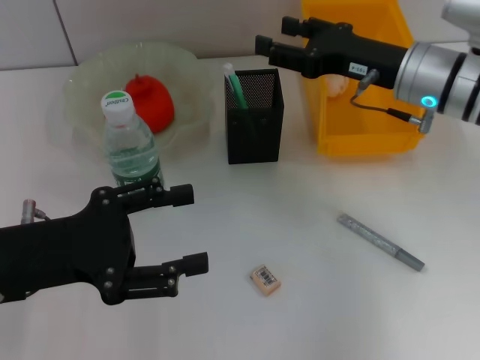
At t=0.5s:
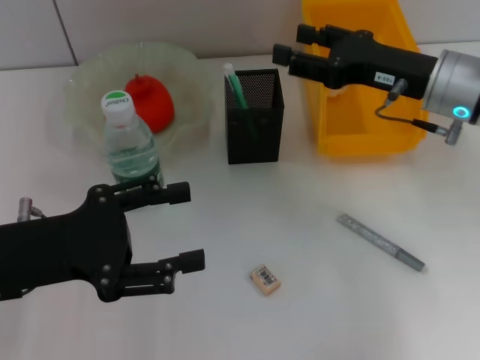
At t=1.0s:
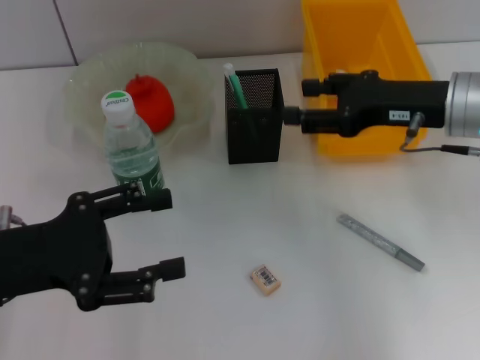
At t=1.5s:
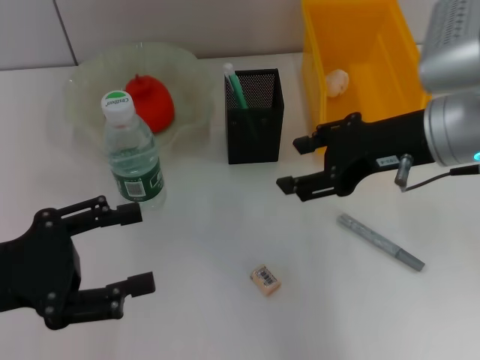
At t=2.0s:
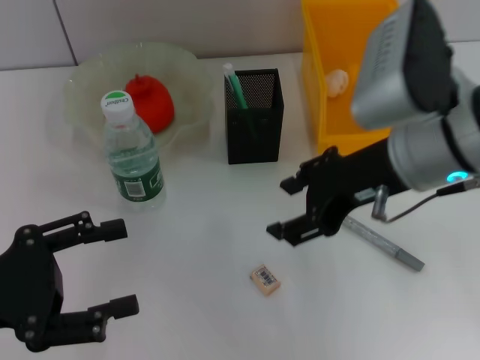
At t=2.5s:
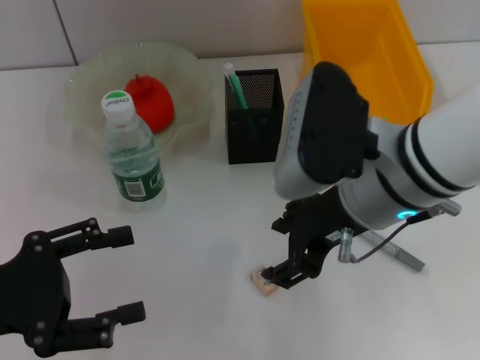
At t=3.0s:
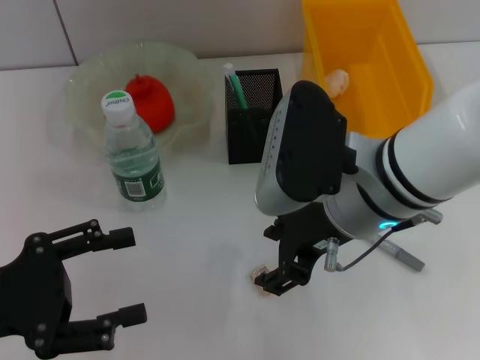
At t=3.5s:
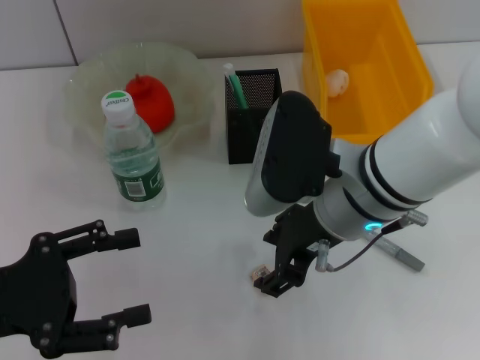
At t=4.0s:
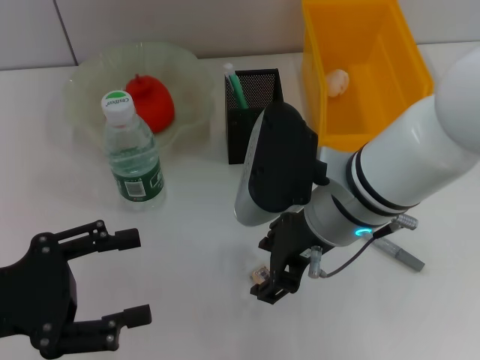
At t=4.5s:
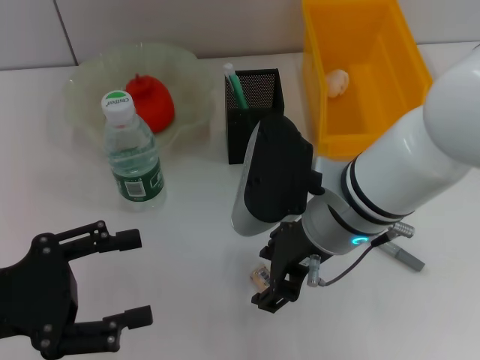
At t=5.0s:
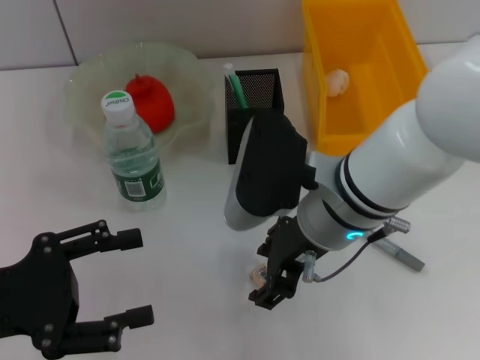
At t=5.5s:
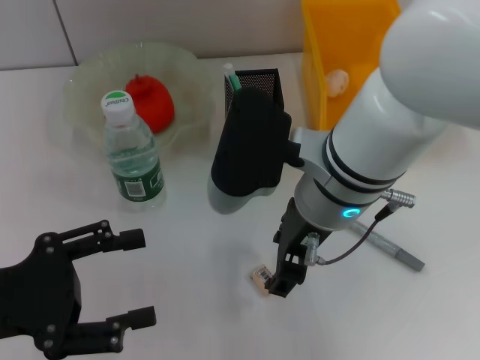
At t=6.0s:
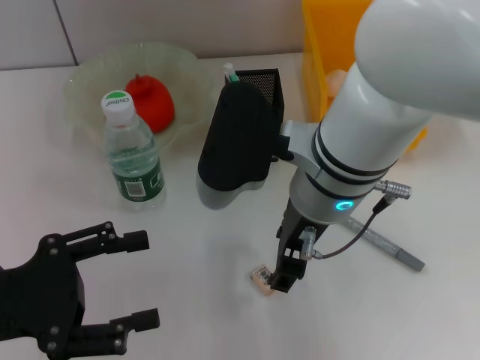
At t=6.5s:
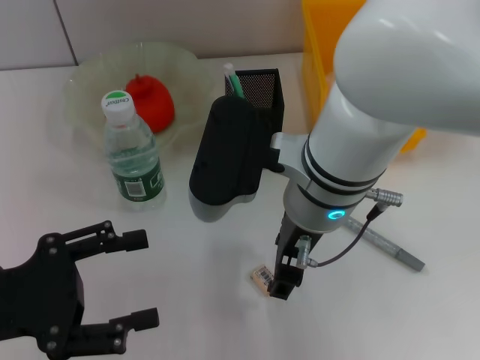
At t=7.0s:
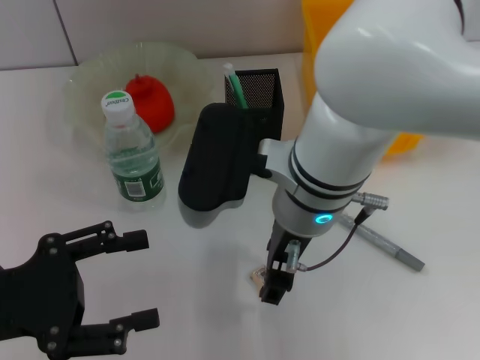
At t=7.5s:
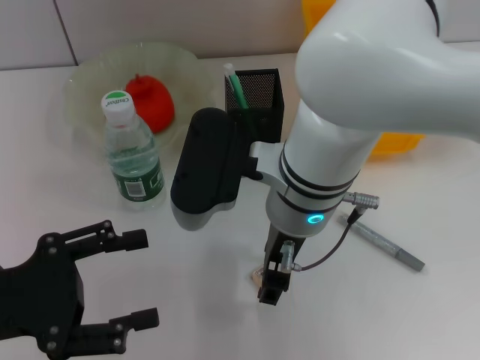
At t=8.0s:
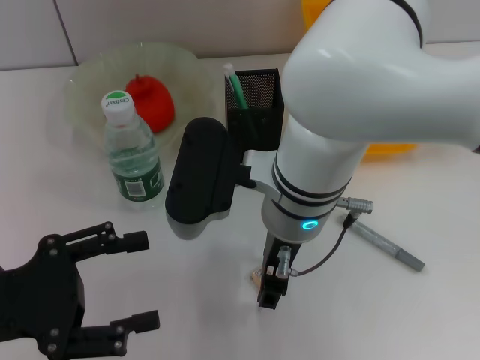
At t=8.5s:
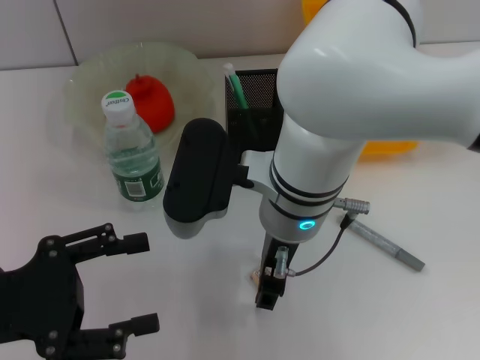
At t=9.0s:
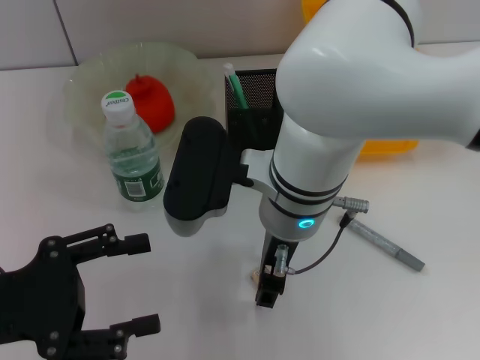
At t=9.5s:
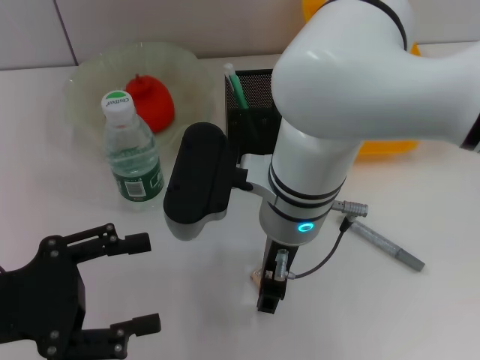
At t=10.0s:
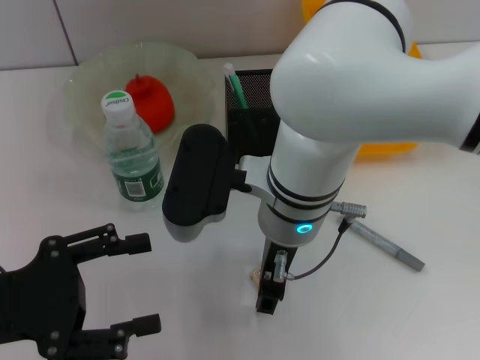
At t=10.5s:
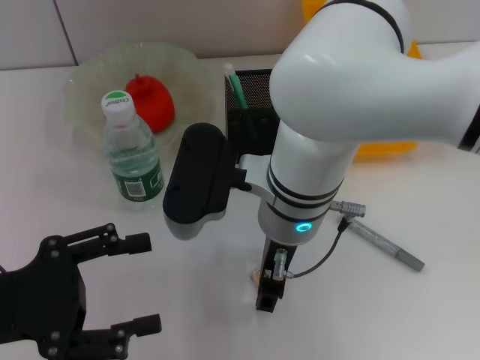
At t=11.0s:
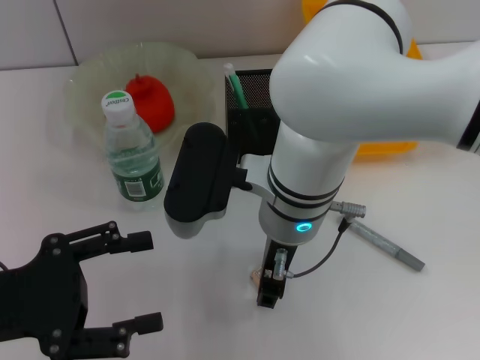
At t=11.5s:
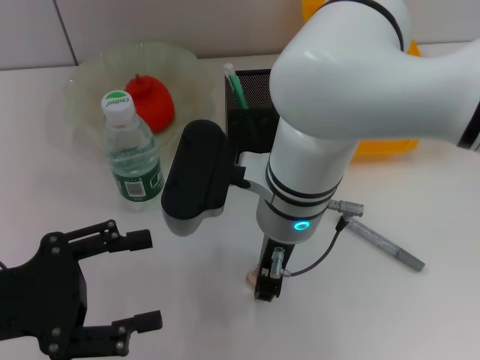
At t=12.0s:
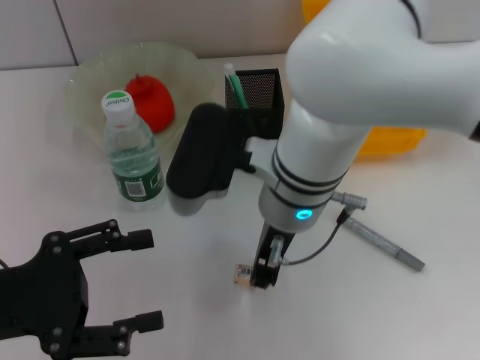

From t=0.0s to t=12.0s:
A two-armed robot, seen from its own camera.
From t=0.0s to t=2.0s: The left gripper is displaced to the left by some 5 cm. Meanwhile the right gripper shifts some 10 cm backward, upward and to the left.
From t=2.0s to t=4.0s: The right gripper is displaced to the left and downward by some 10 cm.
From t=8.0s to t=10.0s: Neither gripper changes place.
From t=10.0s to t=12.0s: The right gripper closes its fingers.

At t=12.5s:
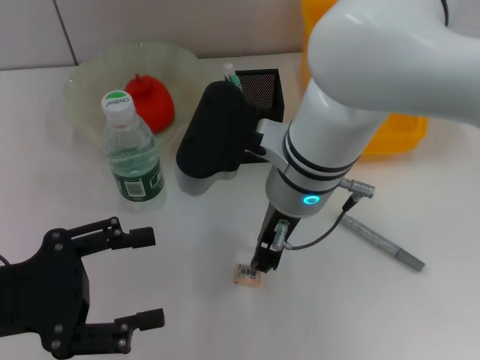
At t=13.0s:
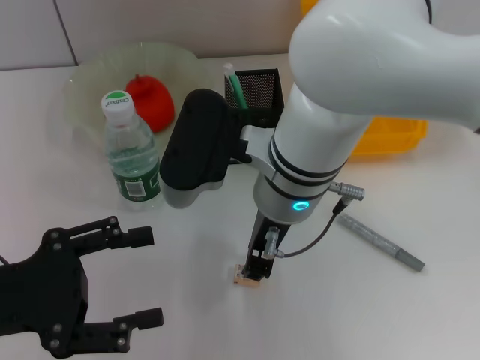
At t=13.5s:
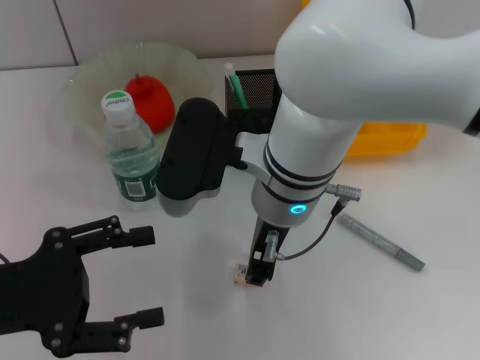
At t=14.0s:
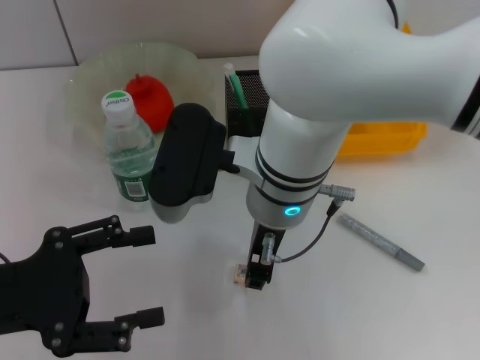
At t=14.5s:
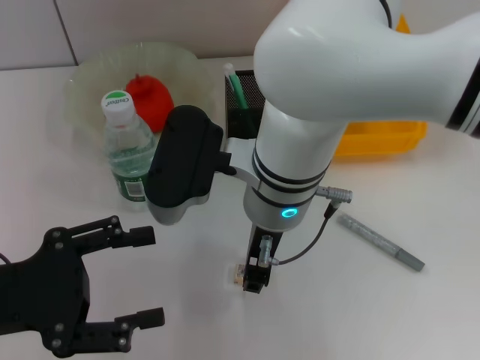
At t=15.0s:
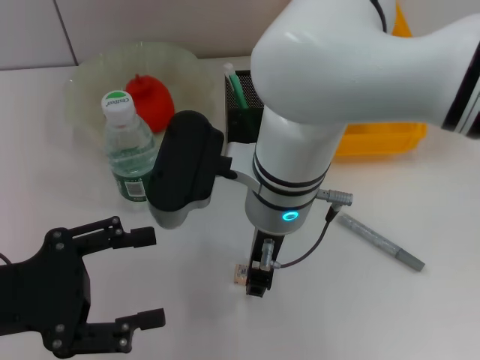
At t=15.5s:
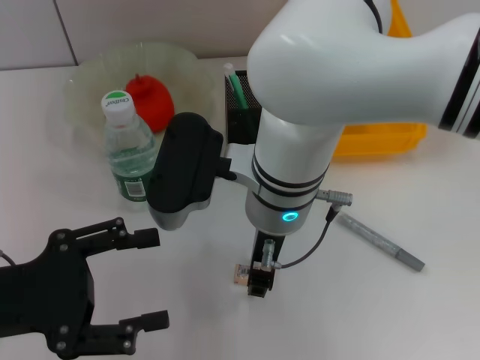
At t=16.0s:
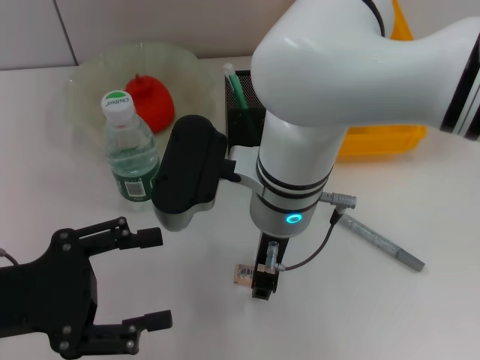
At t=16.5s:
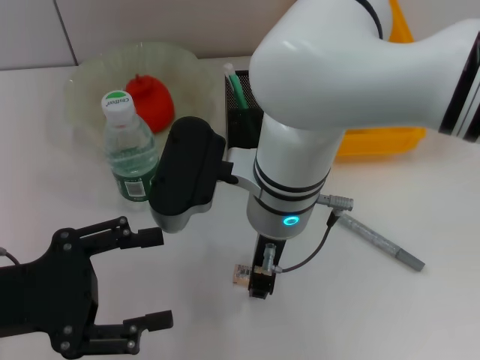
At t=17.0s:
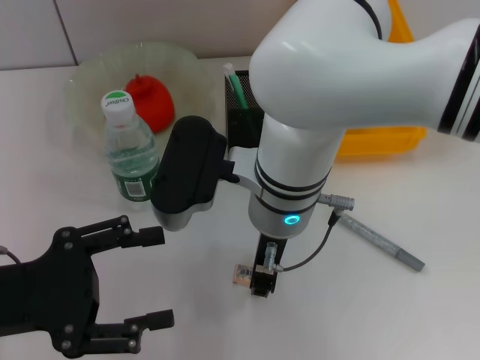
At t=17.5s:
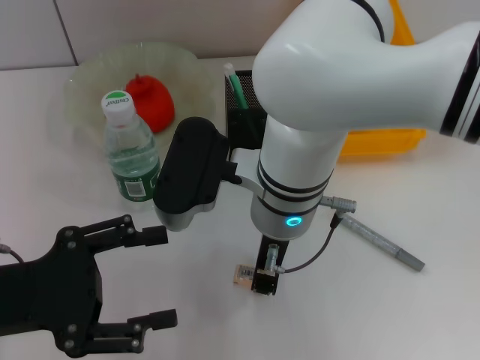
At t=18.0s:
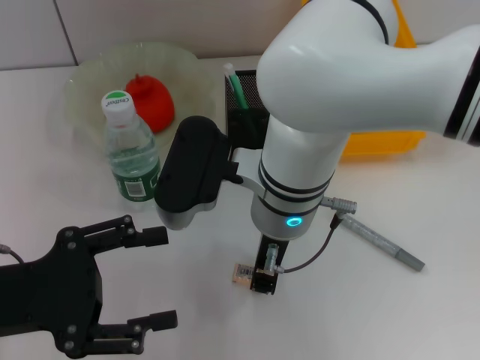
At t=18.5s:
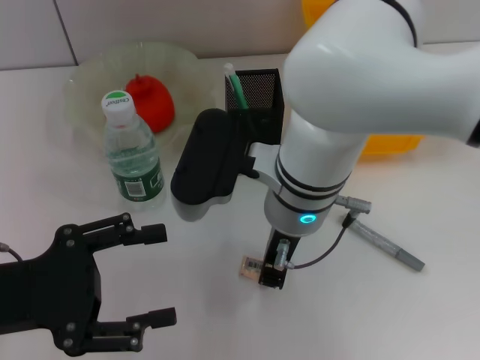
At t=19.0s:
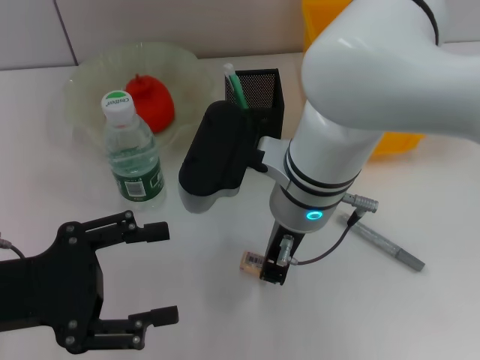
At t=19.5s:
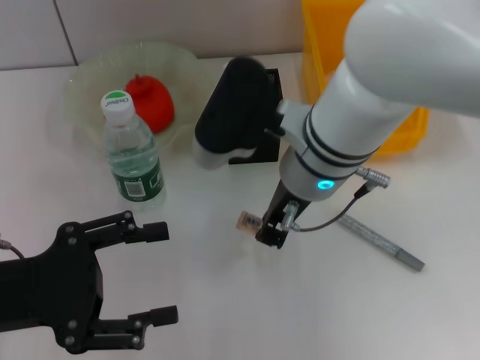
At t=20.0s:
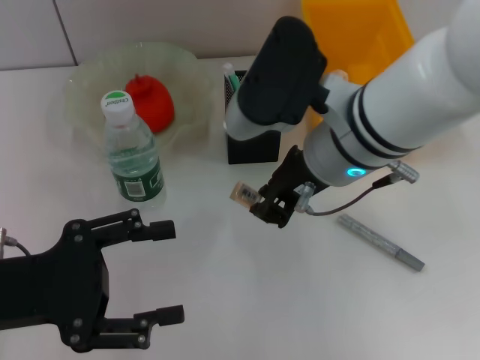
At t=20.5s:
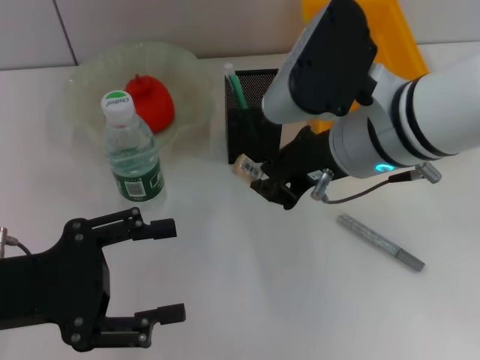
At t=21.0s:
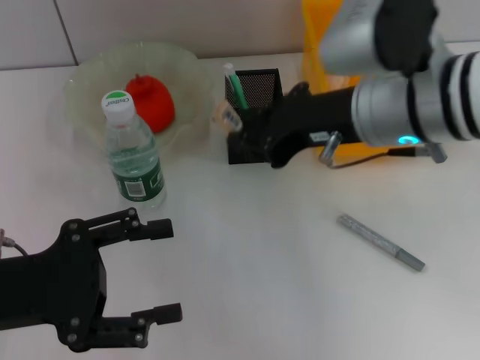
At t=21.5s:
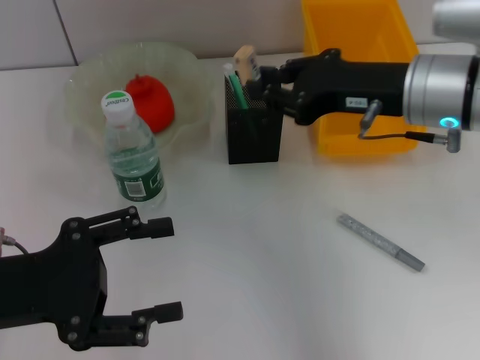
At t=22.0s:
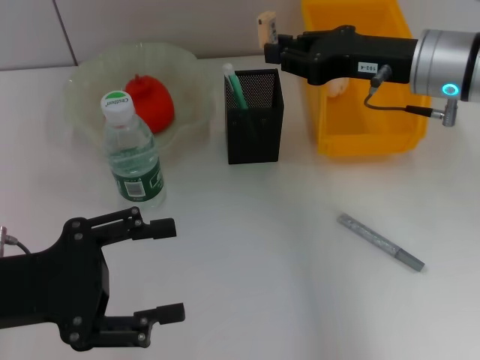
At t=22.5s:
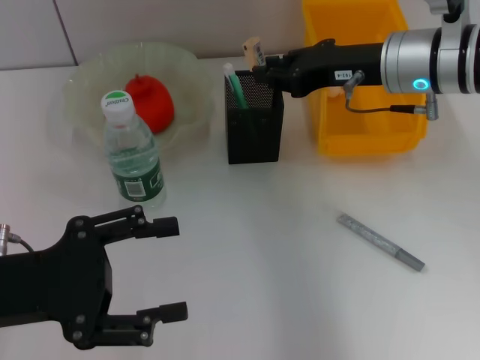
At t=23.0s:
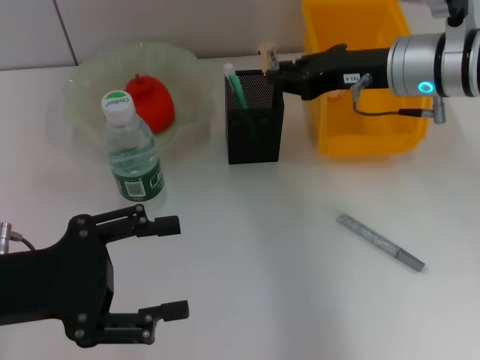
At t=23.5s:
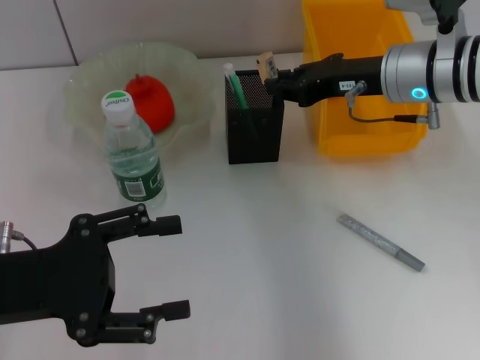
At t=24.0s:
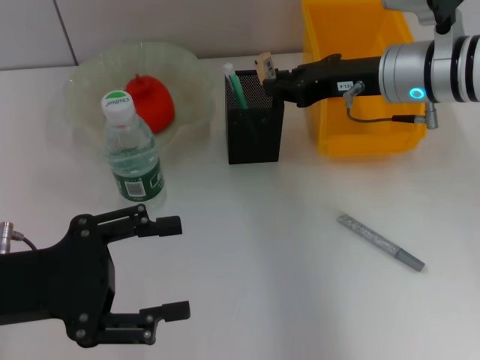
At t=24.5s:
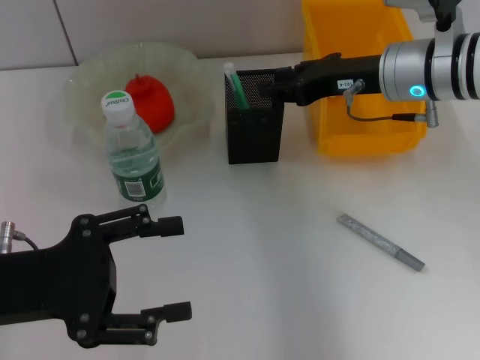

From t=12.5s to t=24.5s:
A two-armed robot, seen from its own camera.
Step, from t=12.5s to t=17.5s: Grab the eraser with the right hand.
From t=12.5s to t=14.5s: There are only small adjustments of the grippers.
From t=14.5s to t=16.5s: Both grippers stay about where they are.
From t=16.5s to t=18.5s: There are only small adjustments of the grippers.
From t=18.5s to t=20.5s: The right gripper moves to the right and upward, roughly 10 cm.
From t=20.5s to t=22.5s: The right gripper moves forward and to the right, roughly 10 cm.
From t=22.5s to t=24.5s: The grippers move only a little.

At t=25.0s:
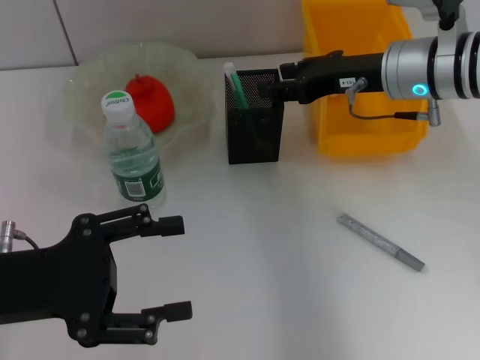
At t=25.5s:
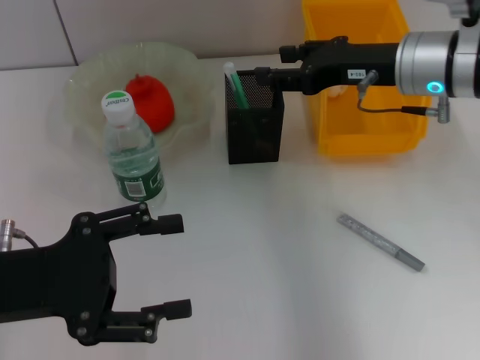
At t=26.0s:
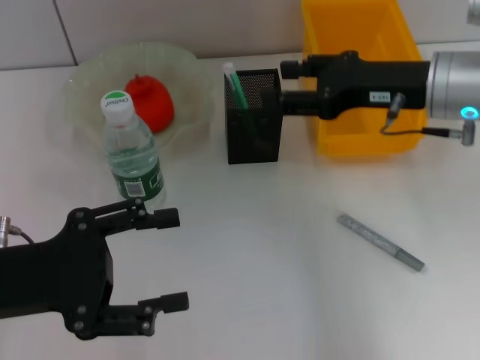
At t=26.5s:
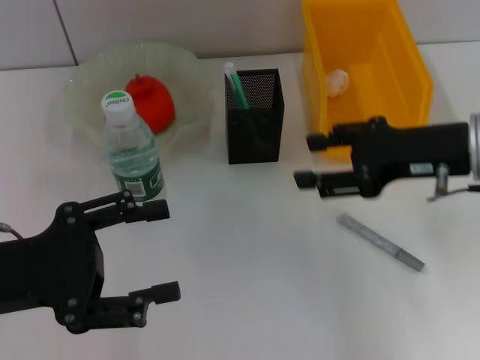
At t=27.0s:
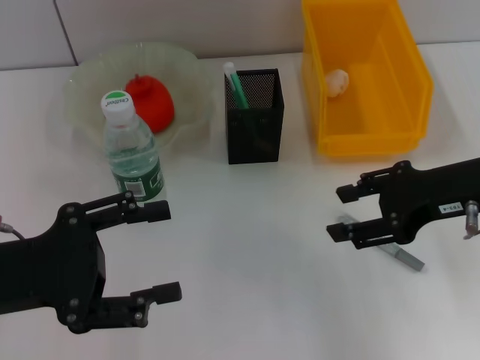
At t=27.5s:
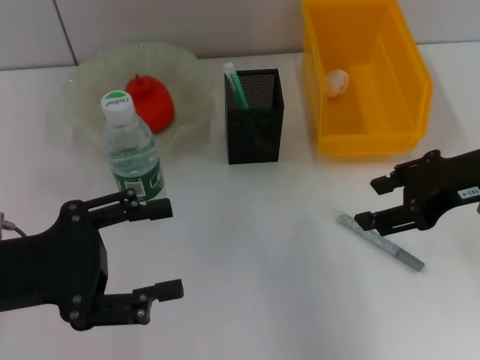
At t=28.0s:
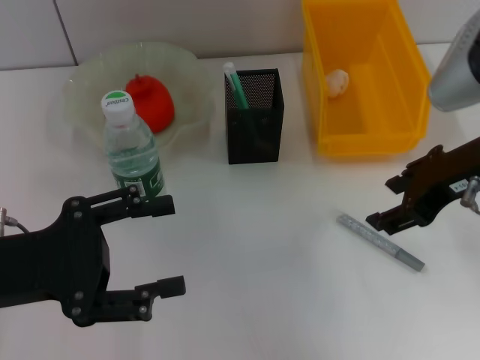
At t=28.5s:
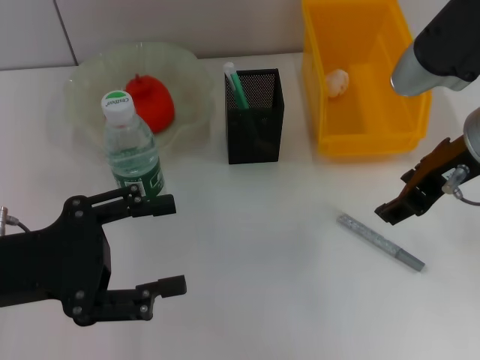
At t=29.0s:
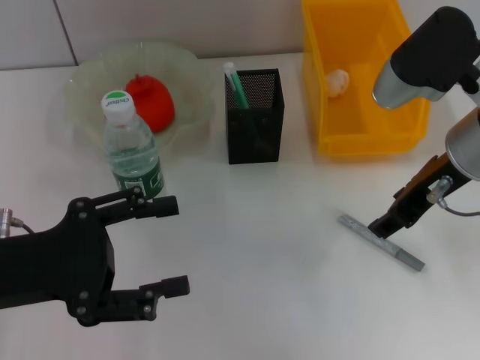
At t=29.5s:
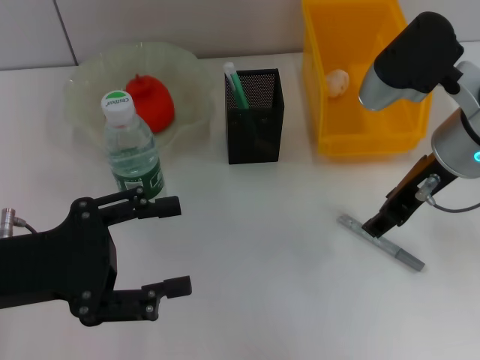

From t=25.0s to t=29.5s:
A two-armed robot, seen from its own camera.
From t=25.0s to t=27.0s: The right gripper travels backward and to the right by approximately 15 cm.
From t=27.0s to t=29.5s: The right gripper goes approximately 5 cm to the left.
